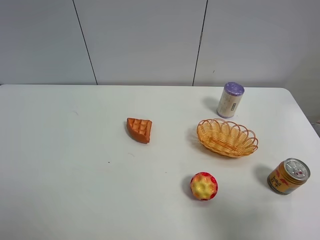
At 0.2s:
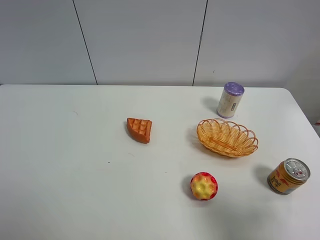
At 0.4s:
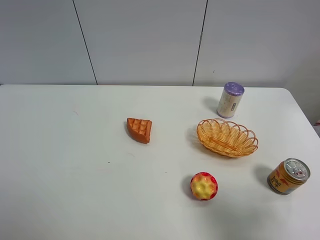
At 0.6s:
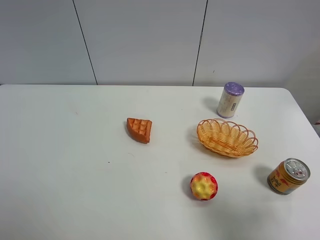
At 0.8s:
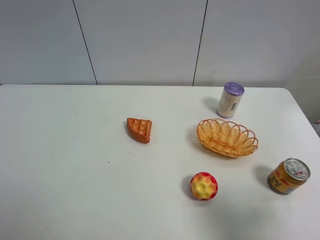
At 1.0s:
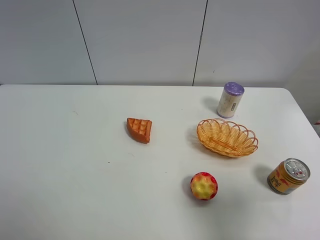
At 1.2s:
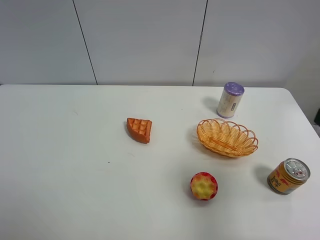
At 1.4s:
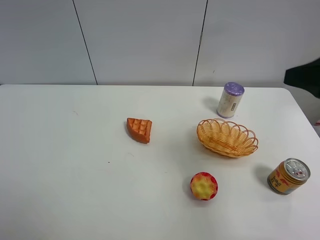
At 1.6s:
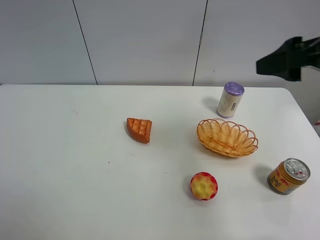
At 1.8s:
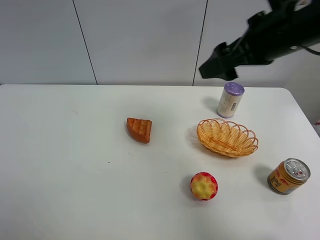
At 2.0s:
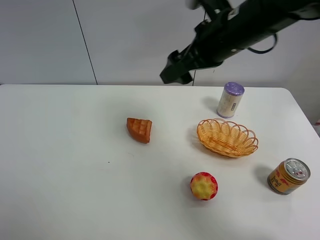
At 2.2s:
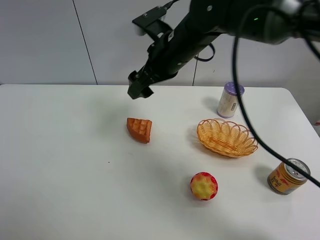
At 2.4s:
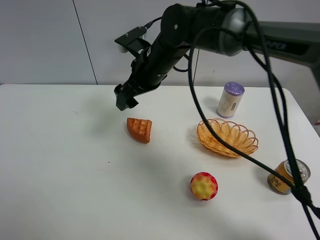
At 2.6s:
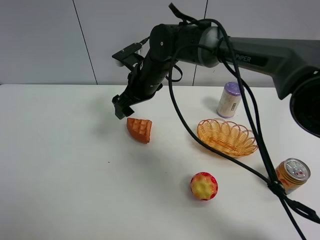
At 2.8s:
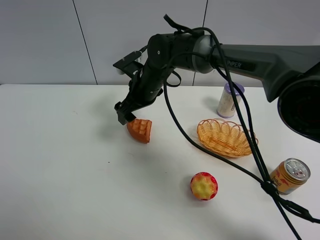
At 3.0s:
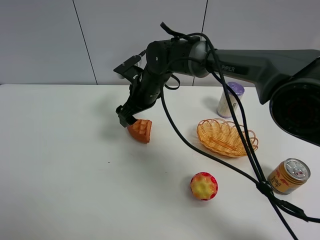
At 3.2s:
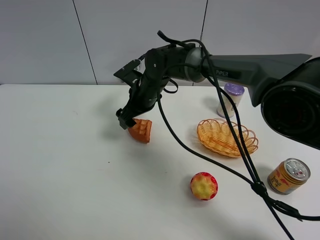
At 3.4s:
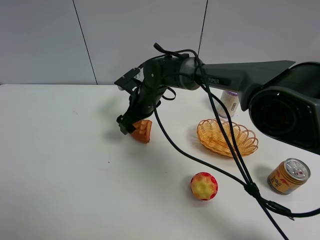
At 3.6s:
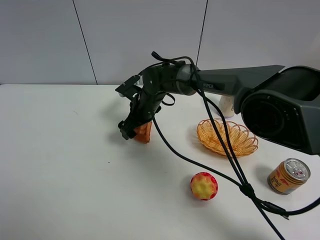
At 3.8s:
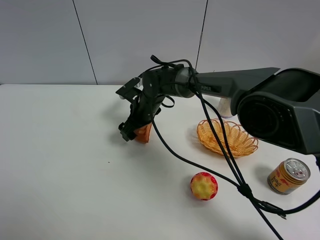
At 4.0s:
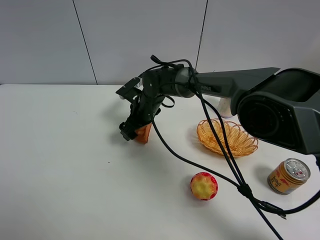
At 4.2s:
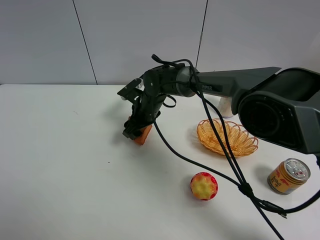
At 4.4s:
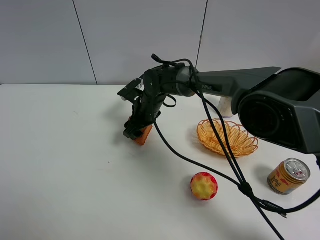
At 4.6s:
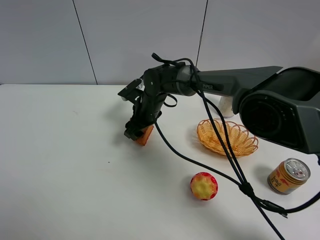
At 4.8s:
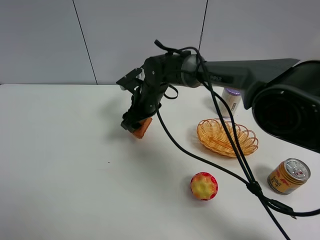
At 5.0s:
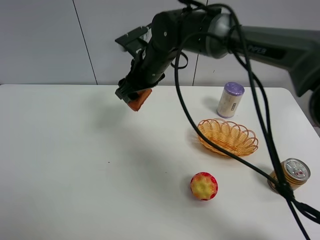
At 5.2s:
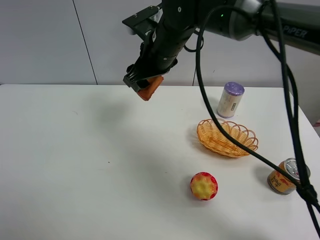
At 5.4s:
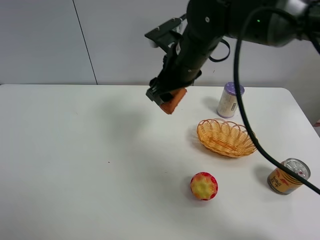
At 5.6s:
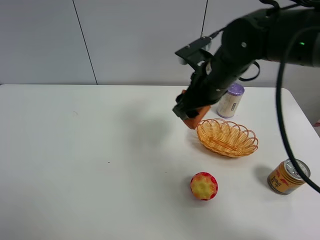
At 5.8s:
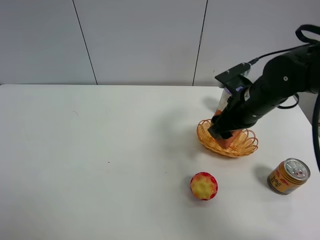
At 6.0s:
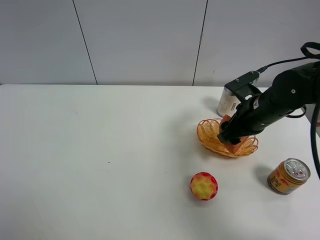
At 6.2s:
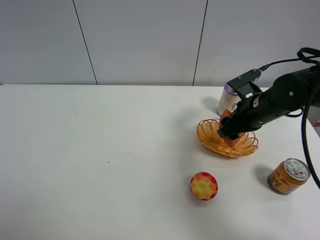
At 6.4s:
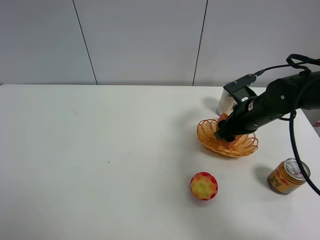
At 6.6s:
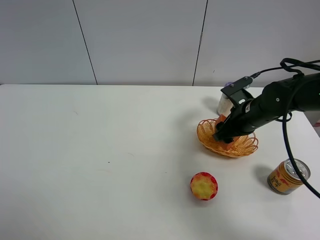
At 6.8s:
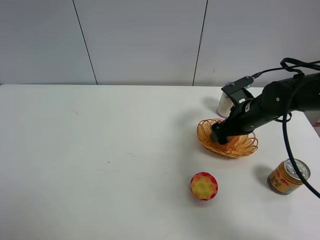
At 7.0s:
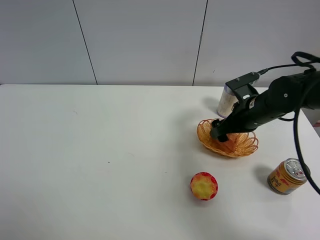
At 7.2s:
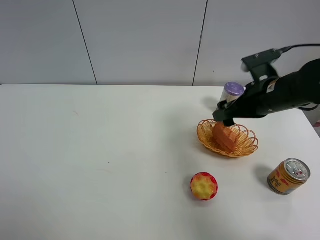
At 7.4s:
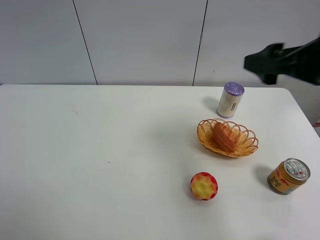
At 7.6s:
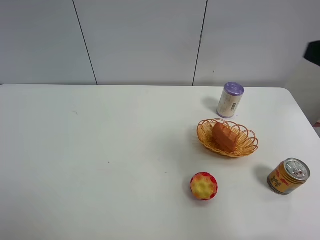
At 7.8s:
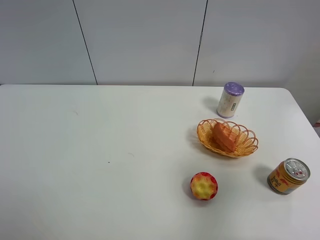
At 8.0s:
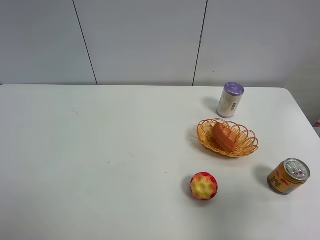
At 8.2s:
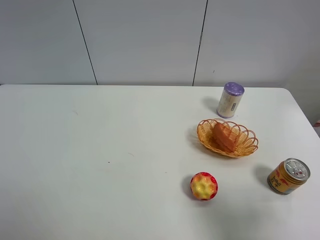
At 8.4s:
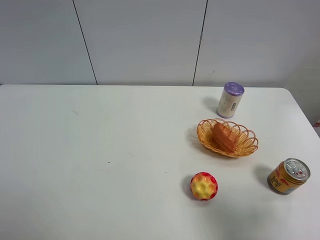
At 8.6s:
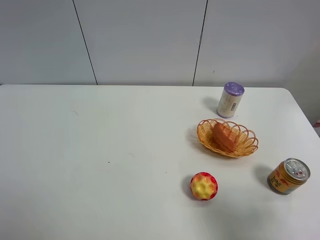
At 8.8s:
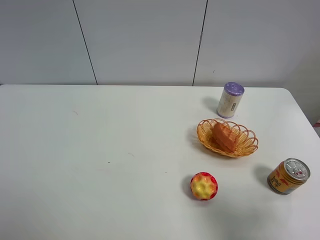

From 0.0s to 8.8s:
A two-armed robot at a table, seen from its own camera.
Task of the whole recording: Put the bakery in the basket.
Step, from 0.0s to 4.2s: Grasp the bread with right gripper.
Step, from 4.4s to 7.2s: Place the bread in the basket with right gripper.
From 0.0s to 1.4s: The right gripper travels forward and upward by some 20 cm.
From 1.4s to 3.0s: The right gripper is displaced to the left, forward and downward by approximately 40 cm.
From 3.0s to 4.4s: The right gripper travels downward by approximately 5 cm, and closes up.
From 4.4s to 5.8s: The right gripper heads to the right, backward and upward, covering some 25 cm.
From 5.8s to 7.4s: The right gripper moves upward, backward and to the right, some 20 cm, and opens its fingers.
From 7.4s to 8.8s: The right gripper goes roughly 20 cm backward and downward.
